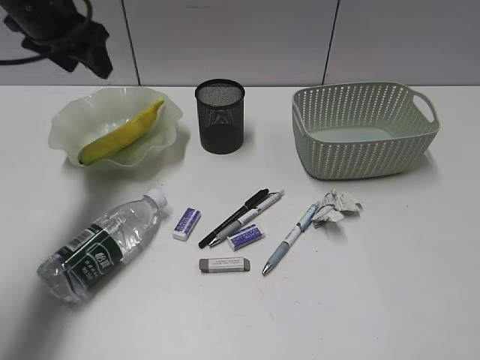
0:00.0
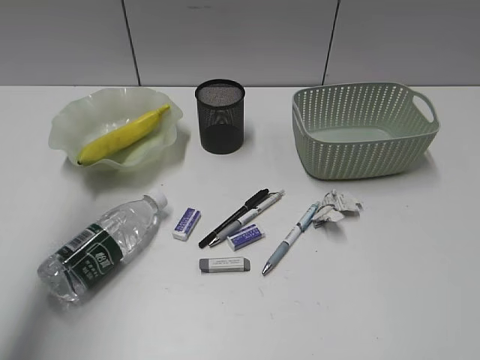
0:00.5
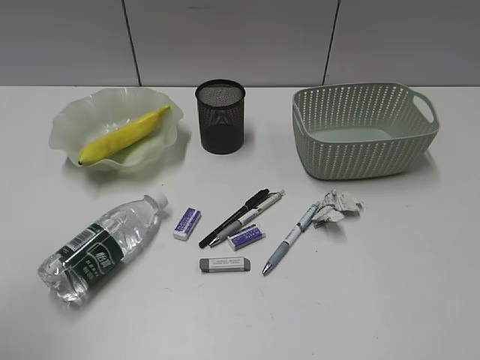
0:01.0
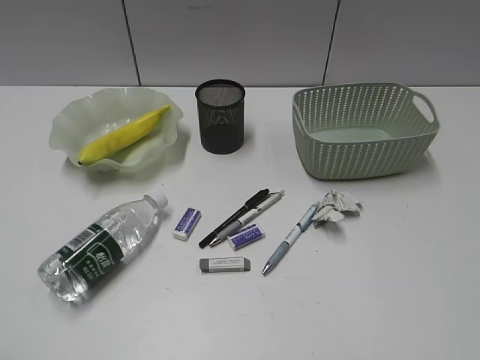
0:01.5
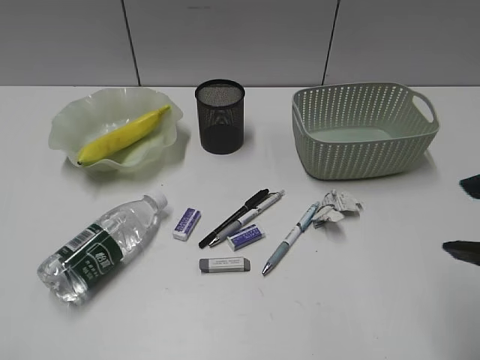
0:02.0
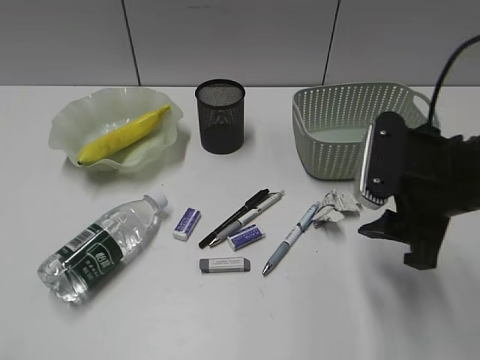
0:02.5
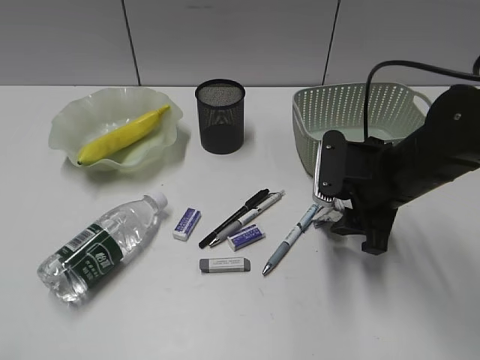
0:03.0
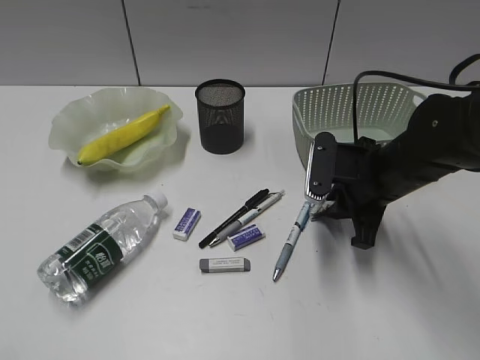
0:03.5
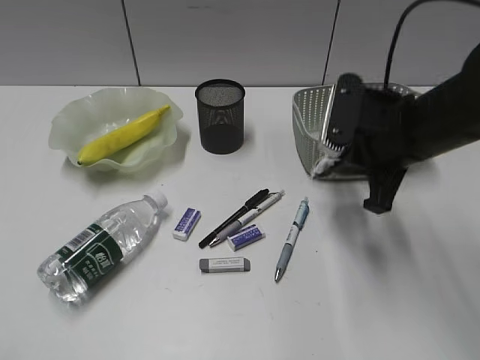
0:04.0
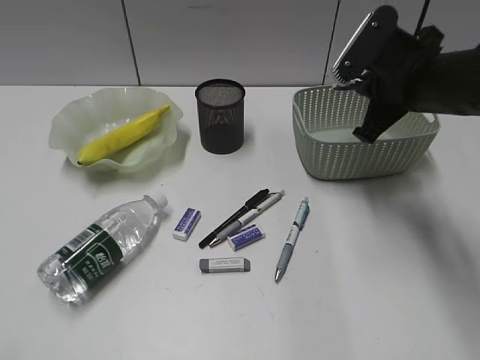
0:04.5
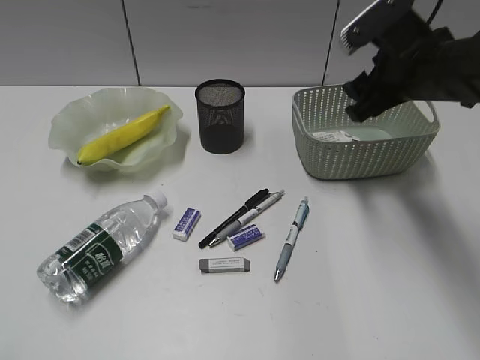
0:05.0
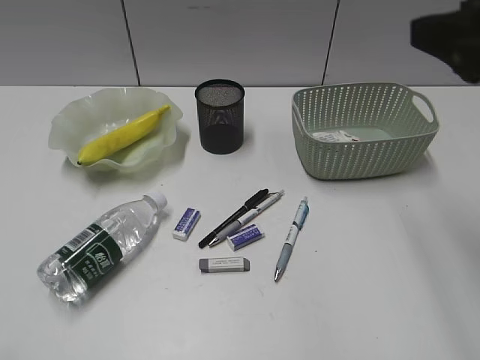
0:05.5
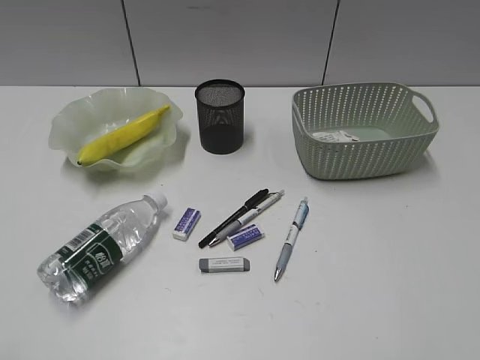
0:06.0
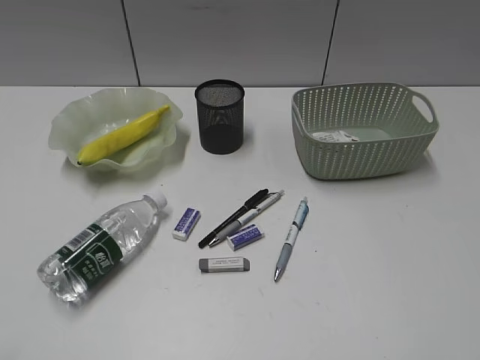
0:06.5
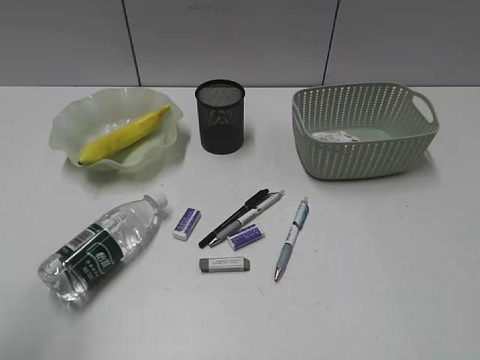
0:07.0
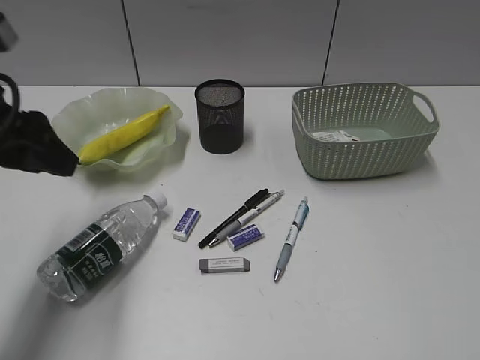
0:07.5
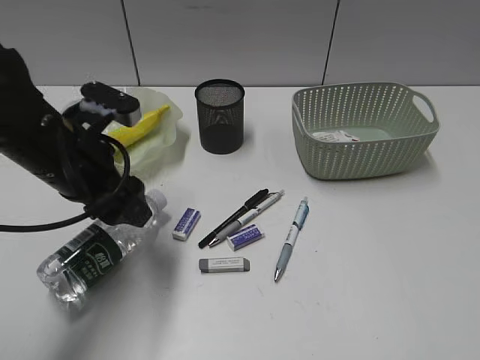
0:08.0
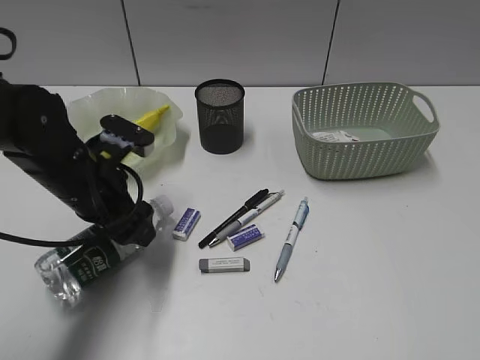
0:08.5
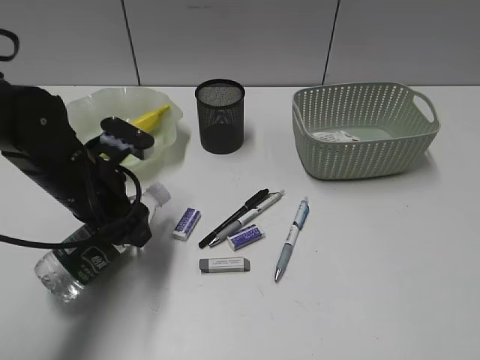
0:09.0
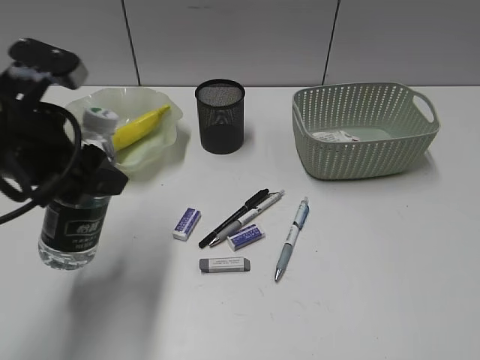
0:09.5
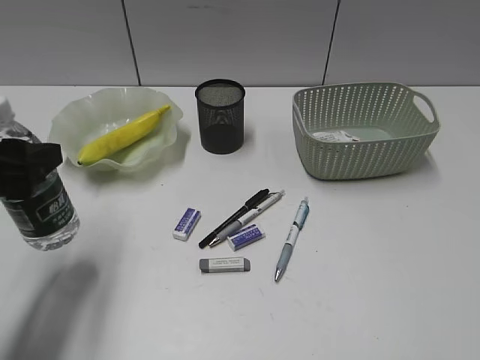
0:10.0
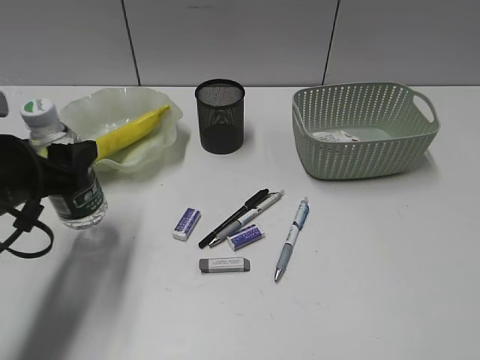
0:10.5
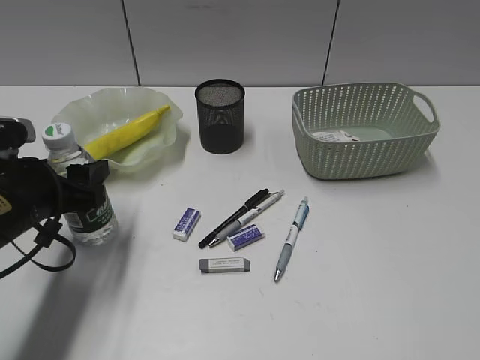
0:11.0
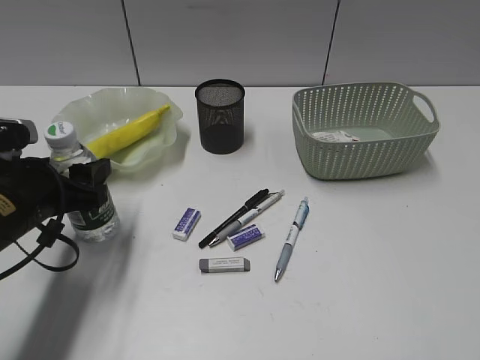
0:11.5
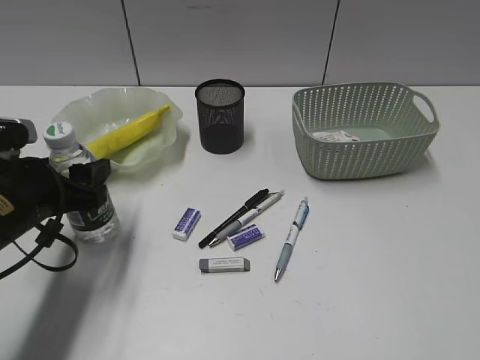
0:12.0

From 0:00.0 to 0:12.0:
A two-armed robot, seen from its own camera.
Step, from 0:00.0 to 0:03.5: Grasp the waste paper with right gripper.
Step, from 0:04.0 to 0:04.5: Place the waste paper in the basket with right gripper.
Step, from 0:05.0 to 0:08.5: Grasp the bottle with left gripper.
From 0:00.0 to 0:02.0: The left gripper shifts some 40 cm backward, and closes, while the right gripper moves forward and to the left, roughly 15 cm, and opens.
From 0:02.0 to 0:04.0: The right gripper travels forward, downward and to the left by about 20 cm, and closes.
From 0:04.0 to 0:06.0: The right gripper goes approximately 25 cm backward, to the right and upward, and opens.
From 0:06.0 to 0:08.0: The right gripper moves backward, some 10 cm, while the left gripper travels forward and to the right by about 30 cm, and opens its fingers.
From 0:08.0 to 0:10.0: The left gripper travels backward and to the left by approximately 10 cm, and moves some 5 cm downward and comes back.
From 0:10.0 to 0:12.0: The left gripper goes about 10 cm downward.

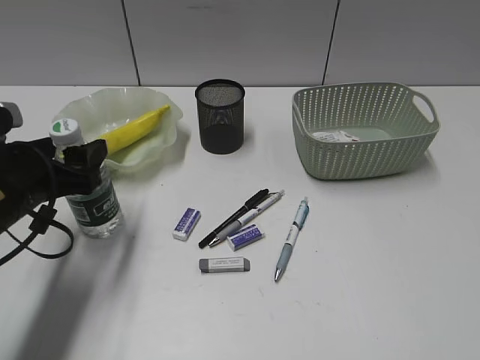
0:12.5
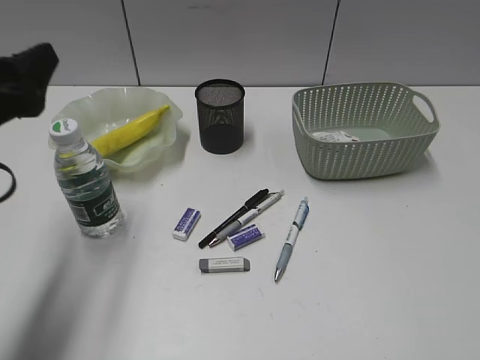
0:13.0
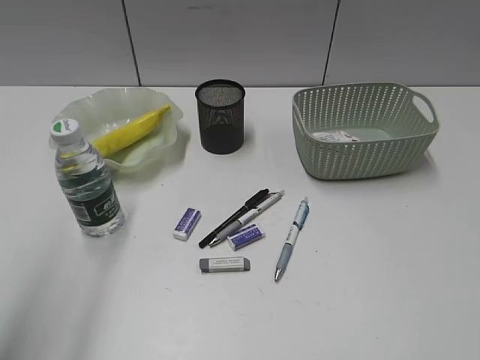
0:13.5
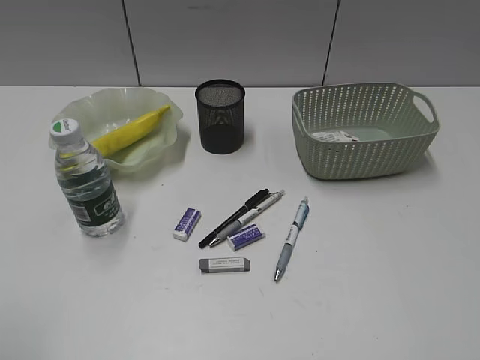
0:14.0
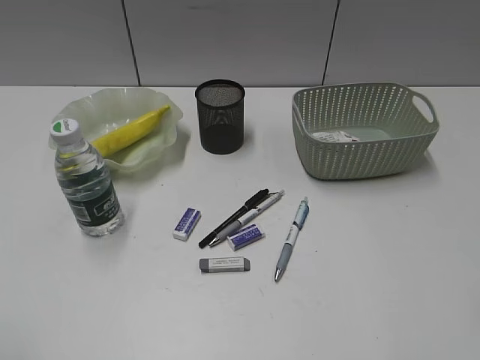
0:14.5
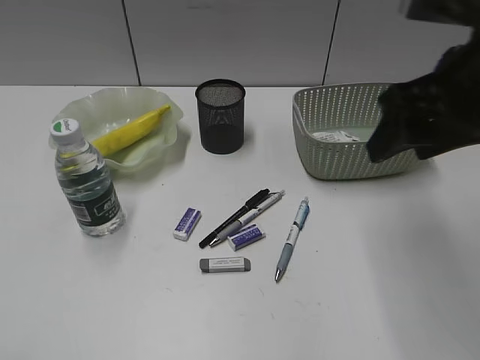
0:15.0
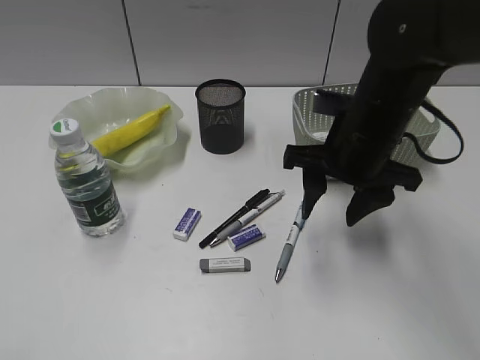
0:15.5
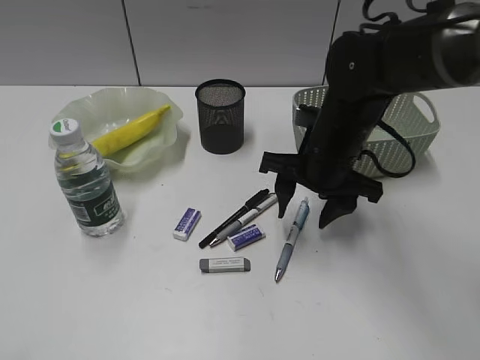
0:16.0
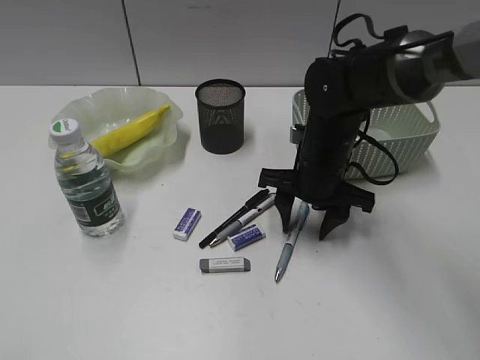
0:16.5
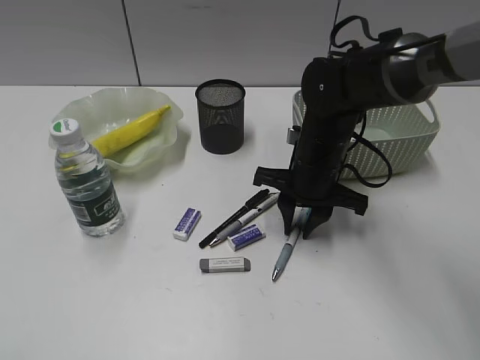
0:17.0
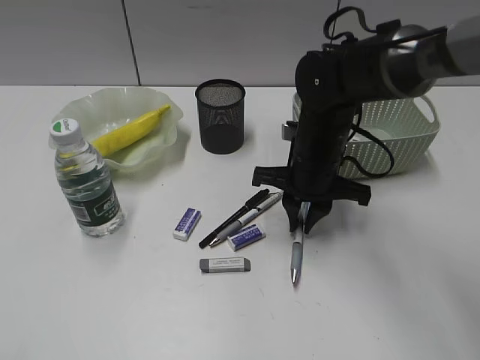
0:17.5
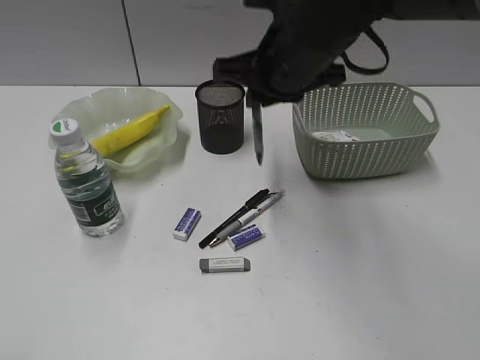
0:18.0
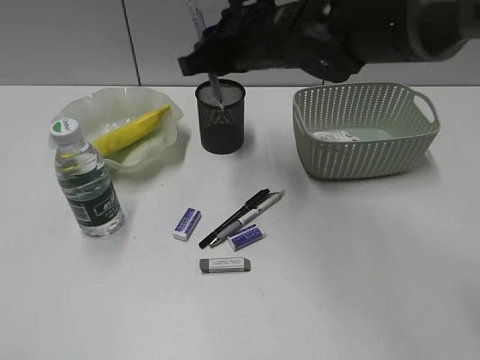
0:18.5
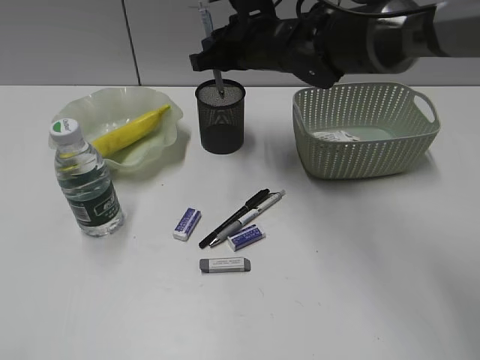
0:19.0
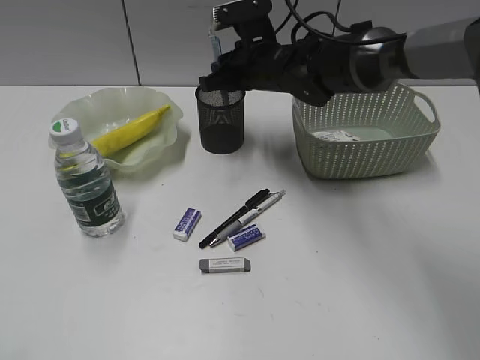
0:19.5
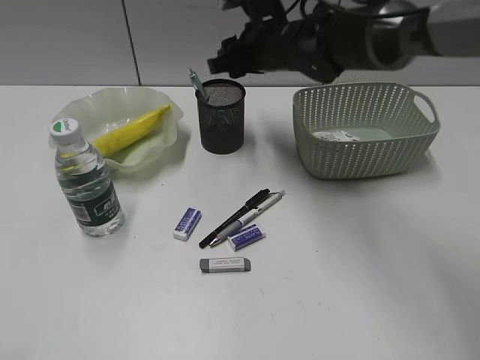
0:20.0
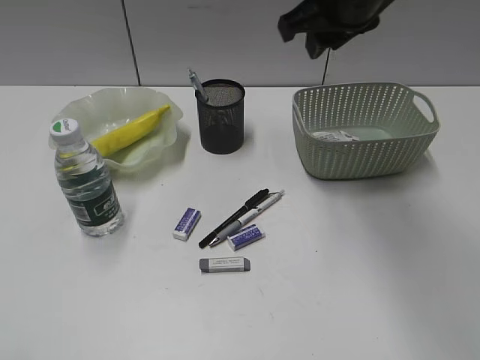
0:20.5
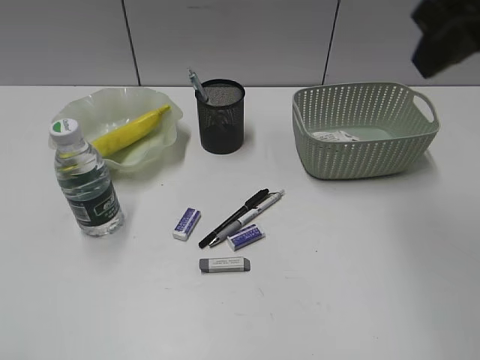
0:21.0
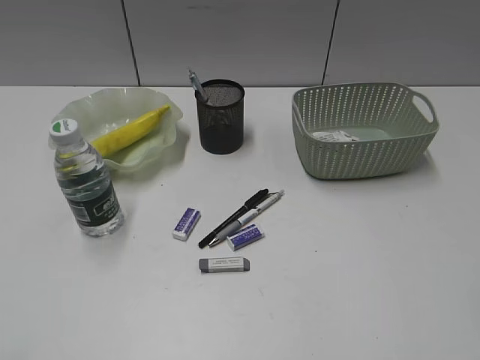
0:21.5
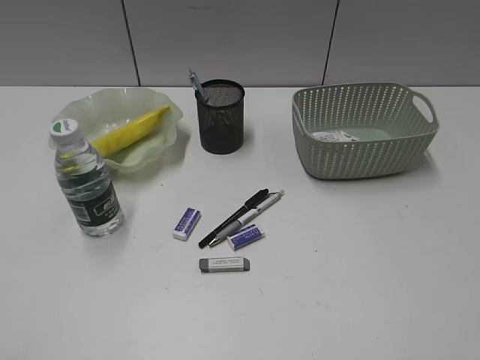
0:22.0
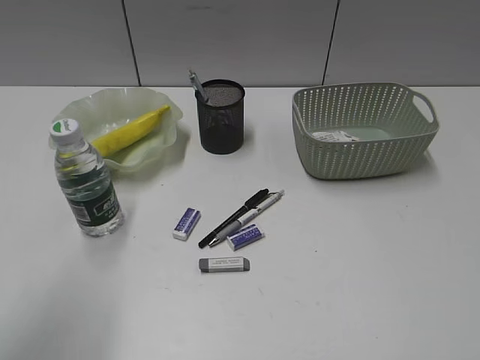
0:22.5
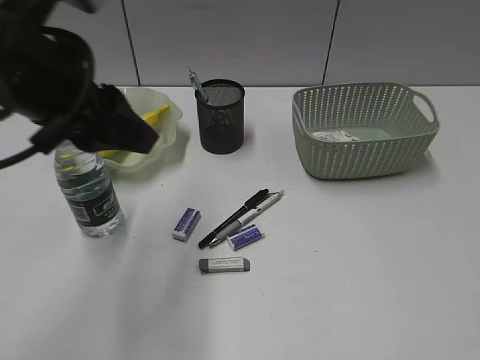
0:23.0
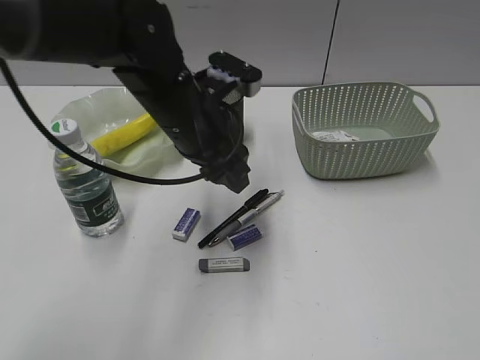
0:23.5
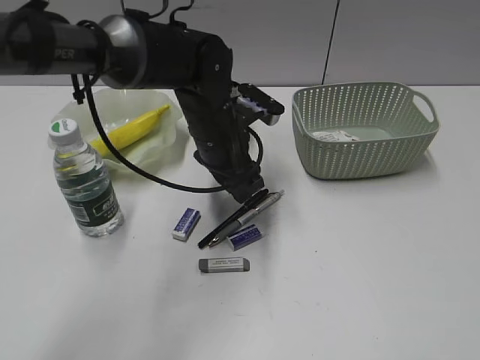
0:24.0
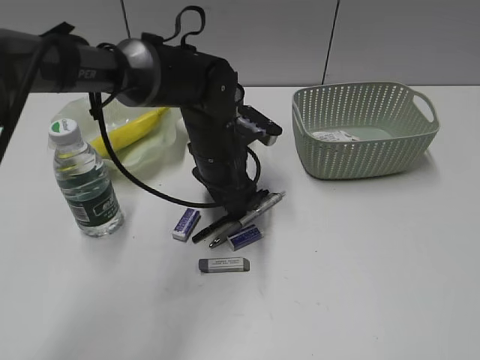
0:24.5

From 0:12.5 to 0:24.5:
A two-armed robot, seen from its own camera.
Step, from 0:13.0 to 0:17.0: Grasp the blue pen with right gripper.
Step, from 0:17.5 to 0:19.5: Place the blue pen in pen holder with right gripper.
From 0:12.5 to 0:14.5: The left gripper moves backward and upward, some 25 cm.
From 0:14.5 to 0:16.5: The right gripper travels forward, downward and to the left by some 35 cm.
From 0:16.5 to 0:18.5: The right gripper travels upward and to the left by roughly 15 cm, and closes its fingers.
From 0:18.5 to 0:20.5: The right gripper shifts about 10 cm upward and to the right, and opens its fingers.
From 0:20.5 to 0:22.5: The right gripper shifts some 40 cm backward and to the right; the left gripper moves forward and to the right, approximately 15 cm.
From 0:22.5 to 0:24.5: The left gripper heads forward, to the right and downward, covering some 40 cm.

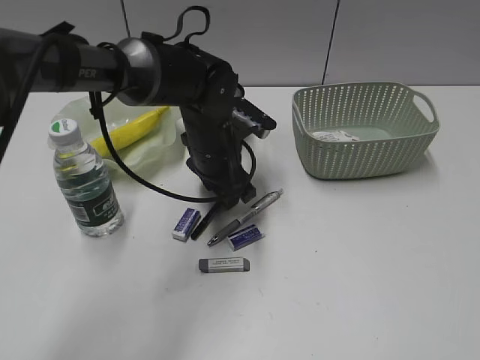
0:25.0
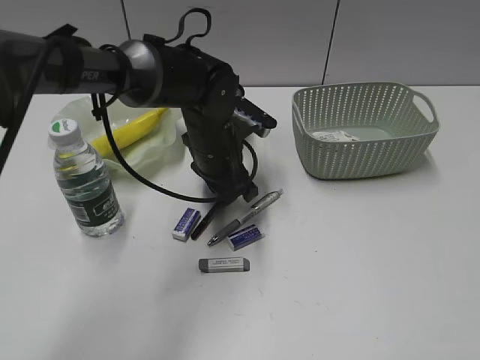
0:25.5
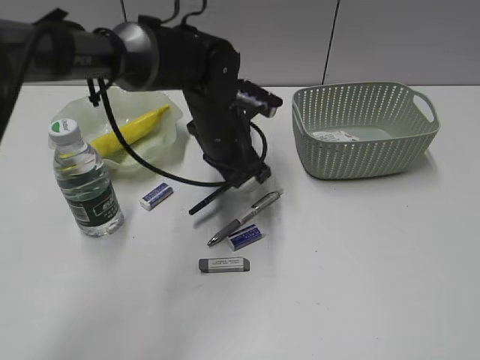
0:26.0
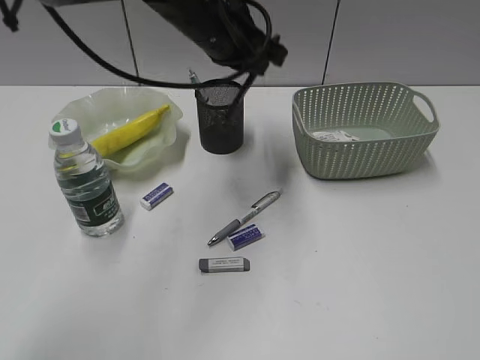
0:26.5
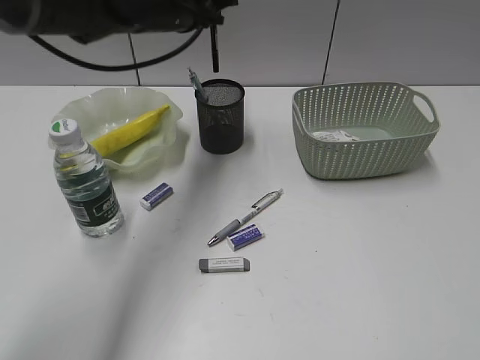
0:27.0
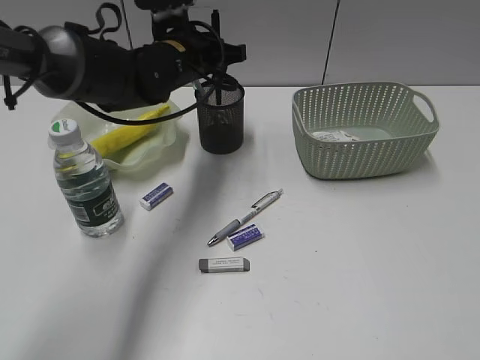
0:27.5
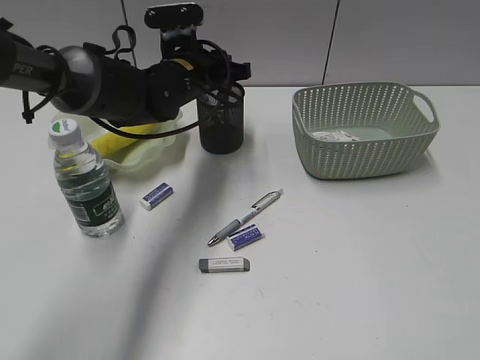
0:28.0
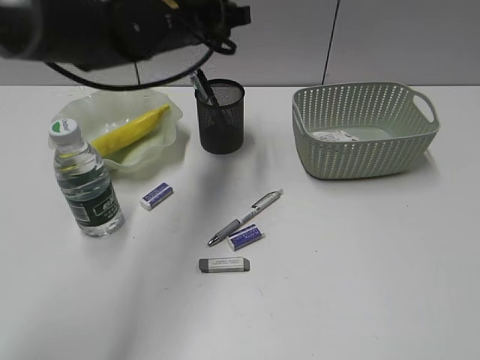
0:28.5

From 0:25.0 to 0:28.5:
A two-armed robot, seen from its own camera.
Step, from 0:26.0 to 0:28.0: Place the black pen in pen holder with left gripper.
From 0:25.0 to 0:27.0: The left gripper moves upward, forward and to the left, approximately 15 cm, and closes its fingers.
From 0:27.0 to 0:28.5: The left gripper moves some 10 cm downward and comes back, and opens up.
